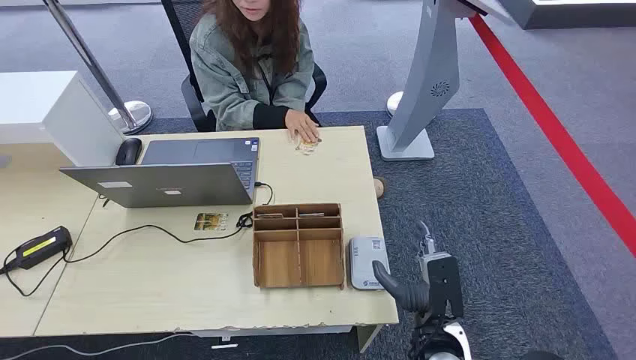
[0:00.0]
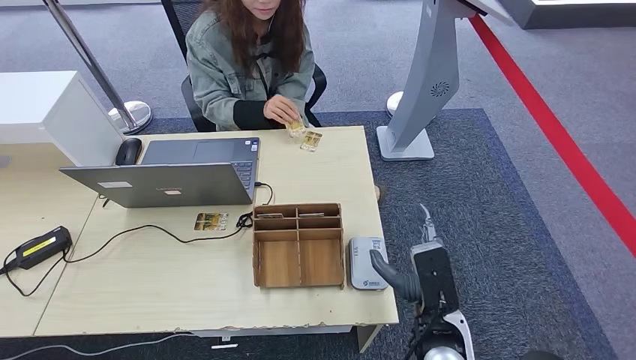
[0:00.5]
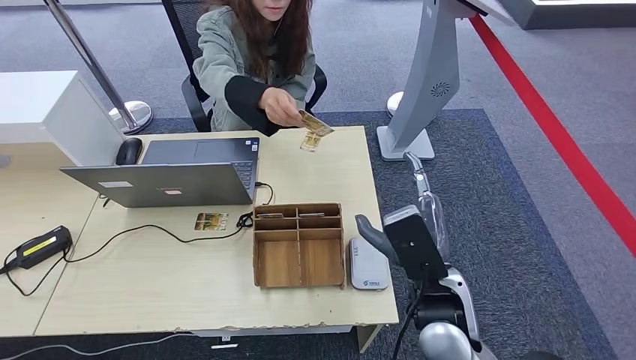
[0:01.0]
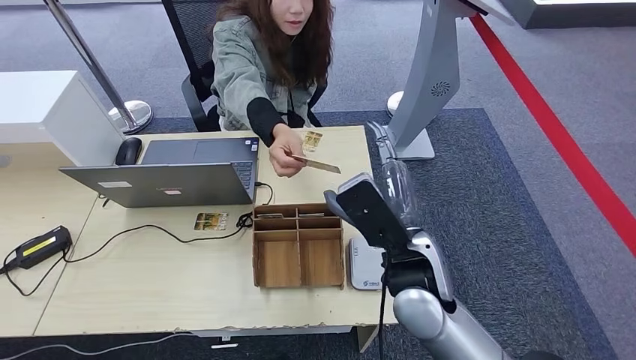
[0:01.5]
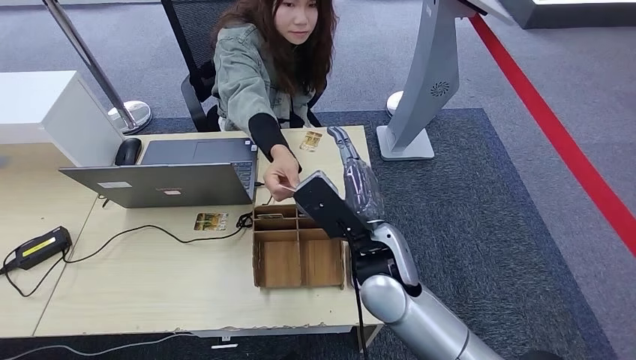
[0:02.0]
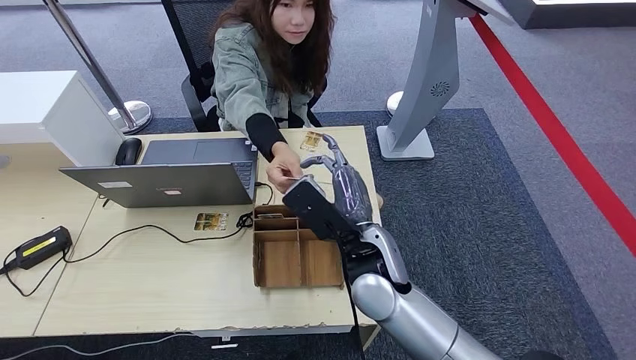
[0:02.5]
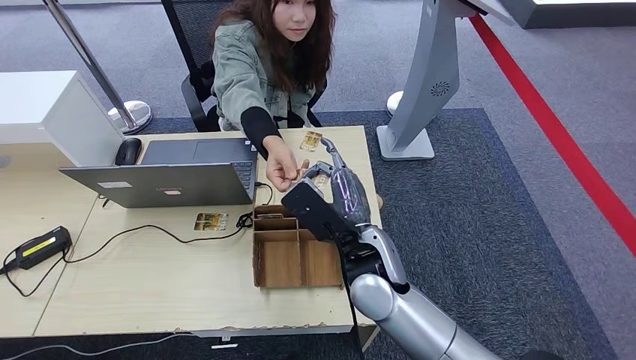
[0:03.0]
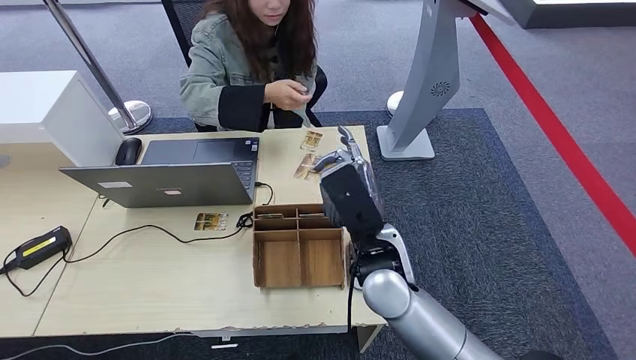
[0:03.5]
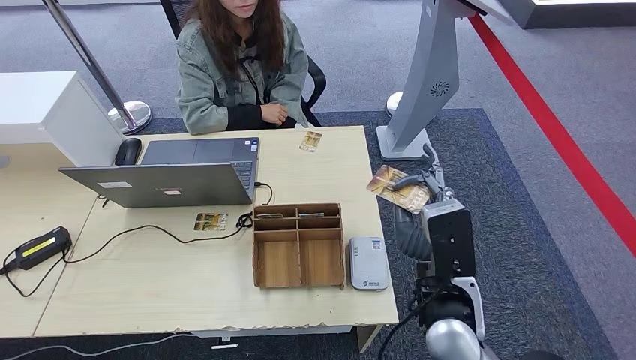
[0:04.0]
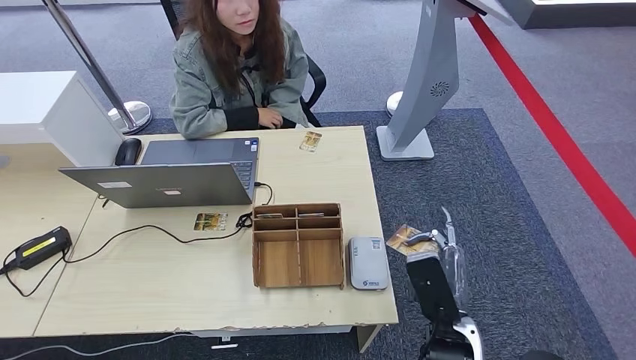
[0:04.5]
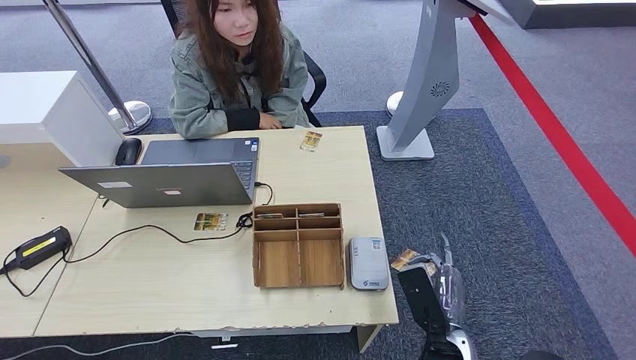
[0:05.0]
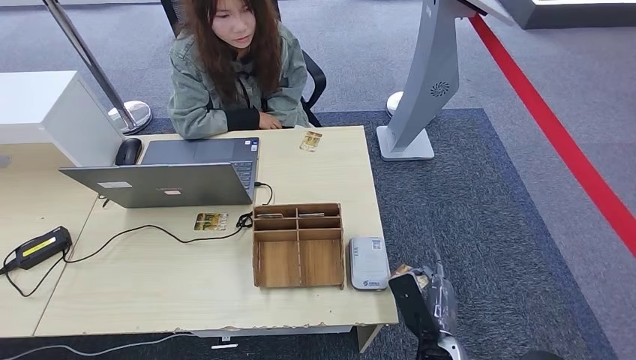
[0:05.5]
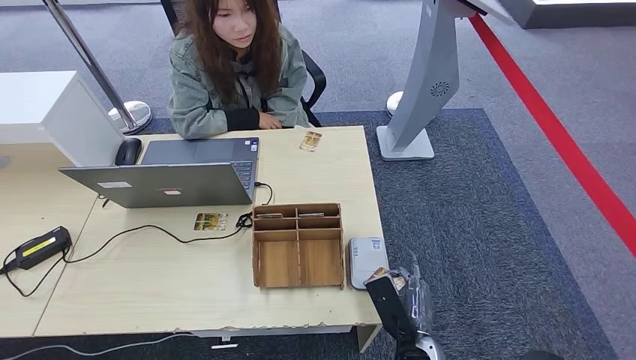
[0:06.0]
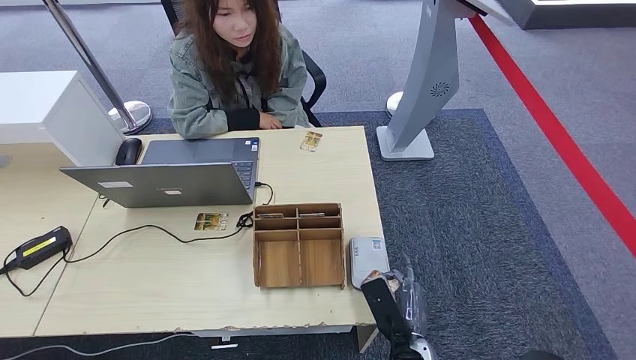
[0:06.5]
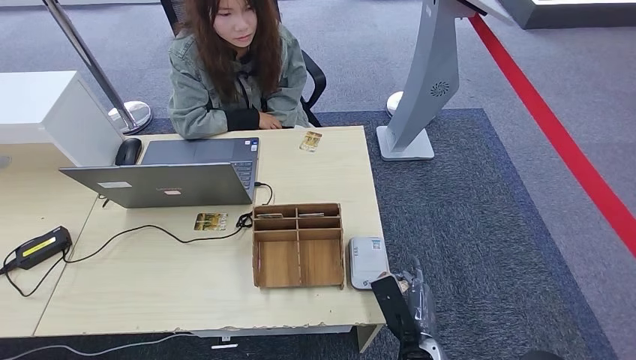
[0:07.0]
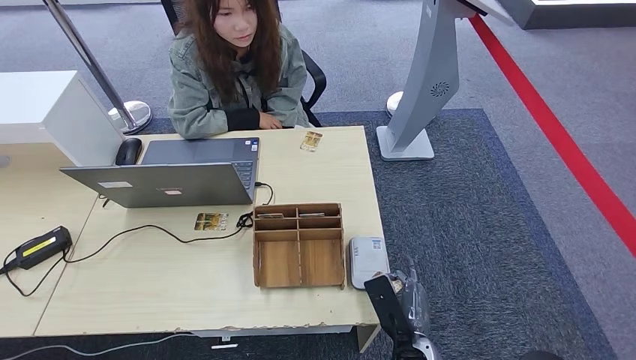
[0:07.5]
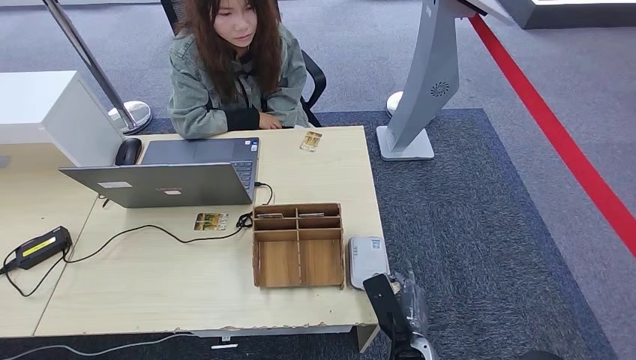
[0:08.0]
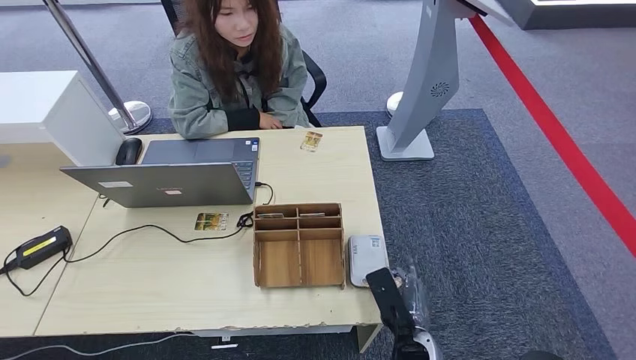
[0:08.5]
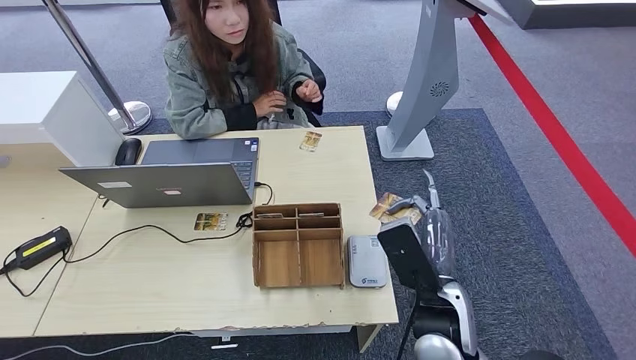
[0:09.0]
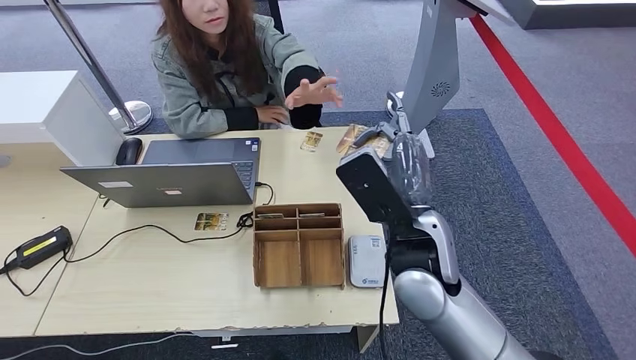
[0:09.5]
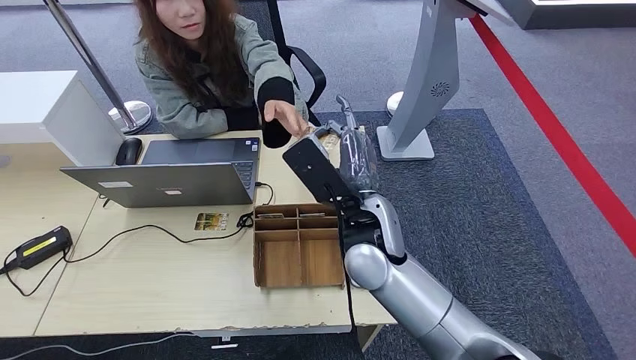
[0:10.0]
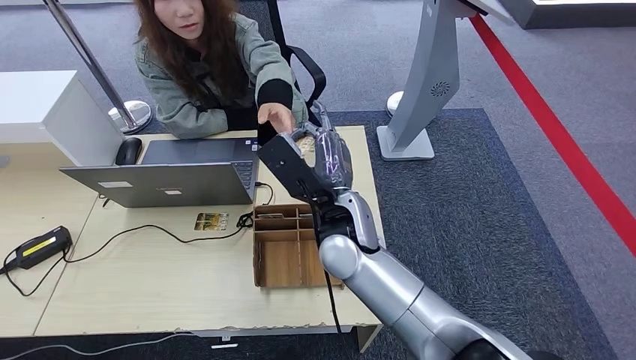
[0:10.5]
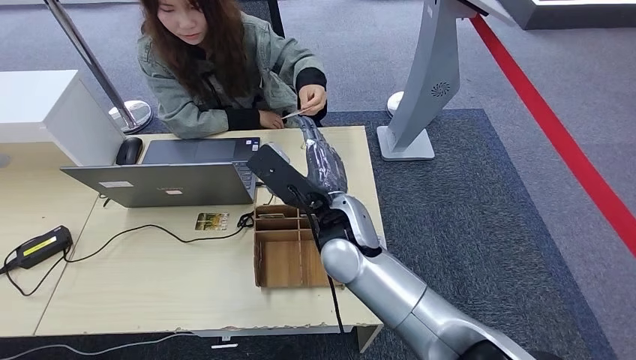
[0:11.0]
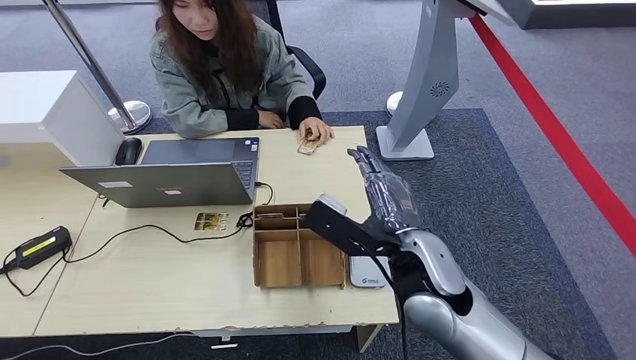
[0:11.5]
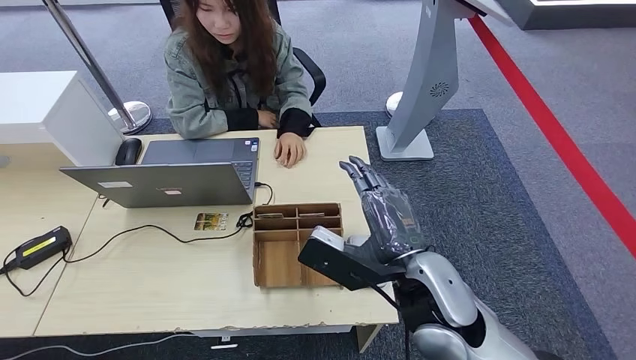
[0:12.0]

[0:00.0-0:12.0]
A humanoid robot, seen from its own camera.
Step, 0:00.0 to 0:03.0: Take the ID card from the person's hand.
Step, 0:03.5 to 0:06.5: Place the ID card on the card reader.
Step, 0:07.0 to 0:09.5: Hand the ID card to the person.
0:02.0 to 0:04.0: The right hand moves to the right and backward, roughly 10 cm.
0:04.0 to 0:06.0: The right hand goes some 20 cm downward and backward.
0:08.0 to 0:10.0: The right hand travels upward, forward and to the left by roughly 30 cm. The left hand ends up some 5 cm from where it was.
0:10.0 to 0:12.0: The left hand shifts by roughly 5 cm. The right hand heads backward and to the right, covering roughly 10 cm.

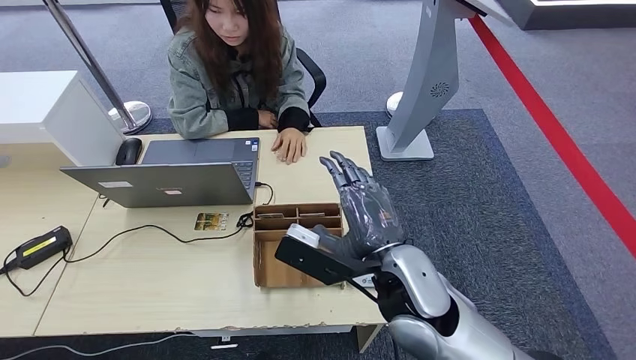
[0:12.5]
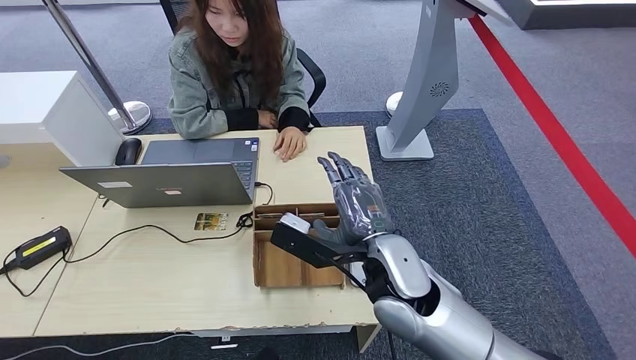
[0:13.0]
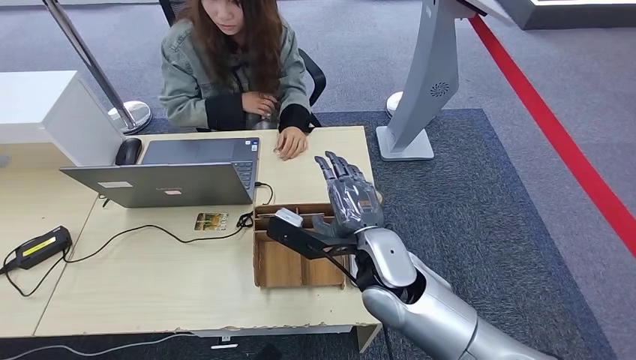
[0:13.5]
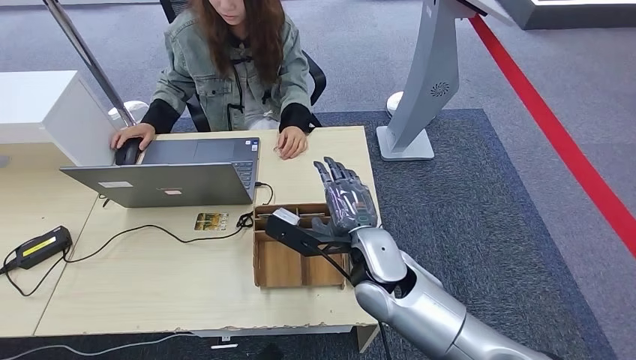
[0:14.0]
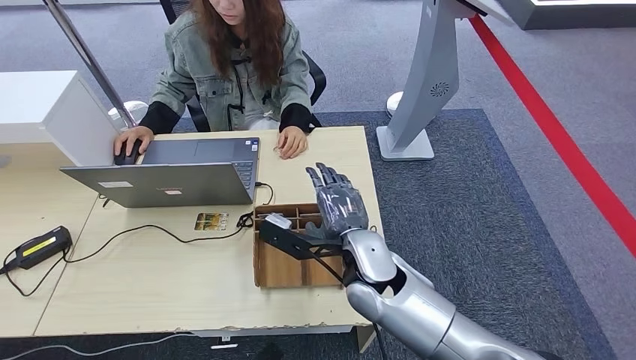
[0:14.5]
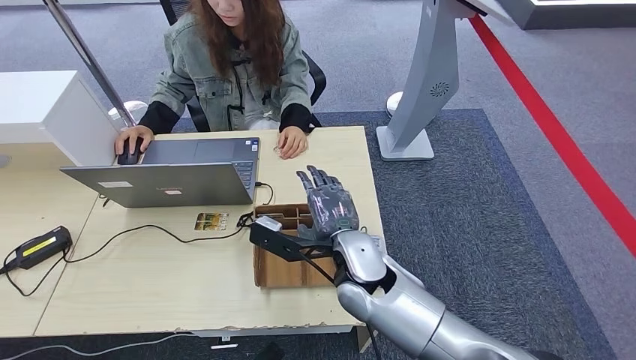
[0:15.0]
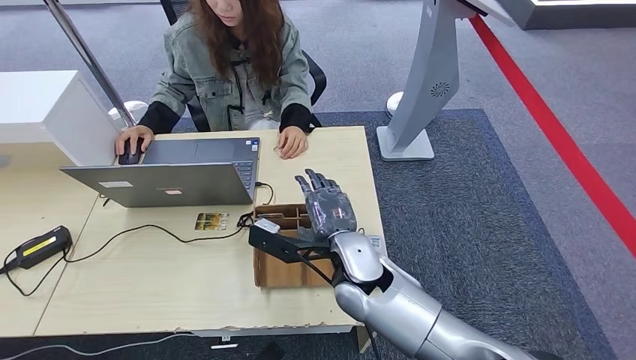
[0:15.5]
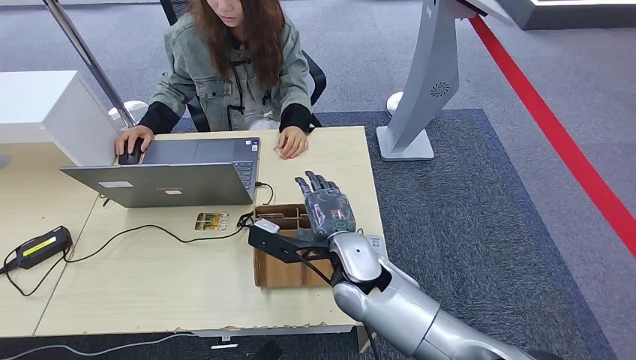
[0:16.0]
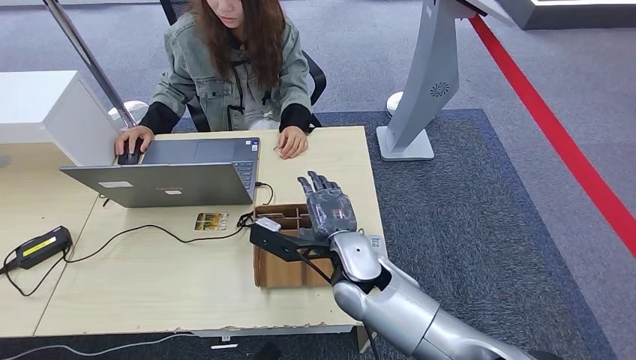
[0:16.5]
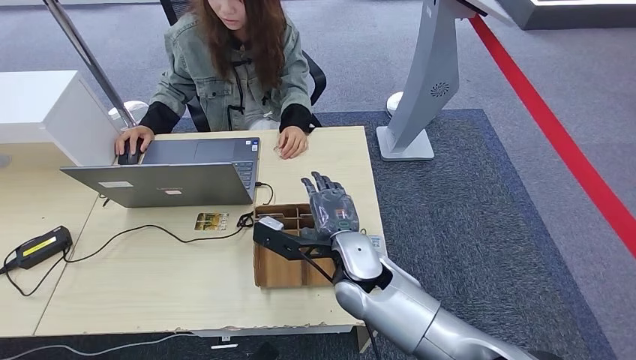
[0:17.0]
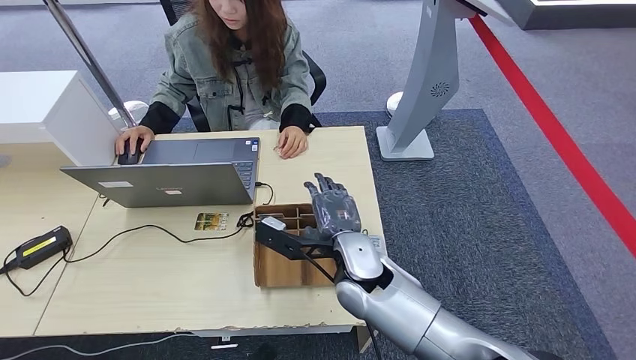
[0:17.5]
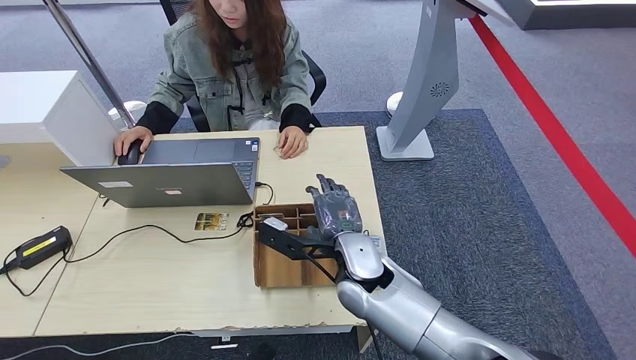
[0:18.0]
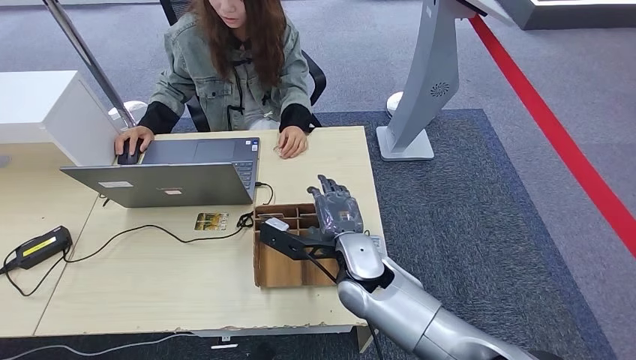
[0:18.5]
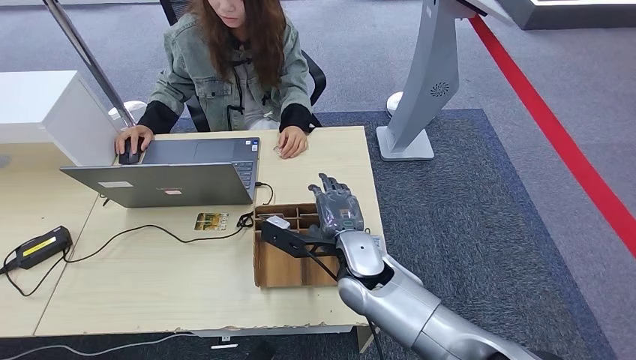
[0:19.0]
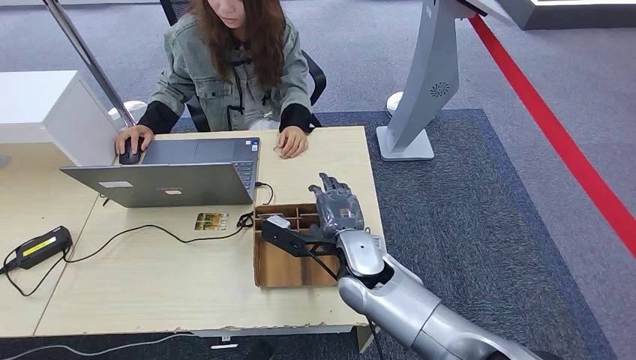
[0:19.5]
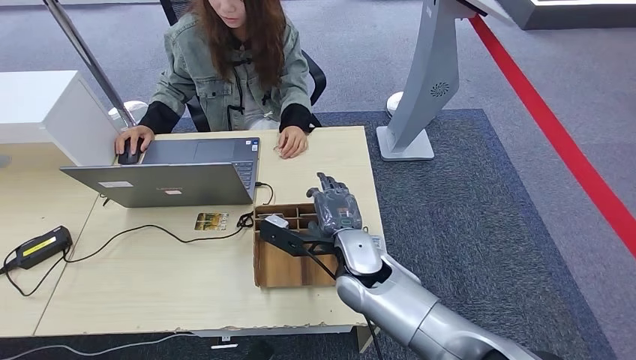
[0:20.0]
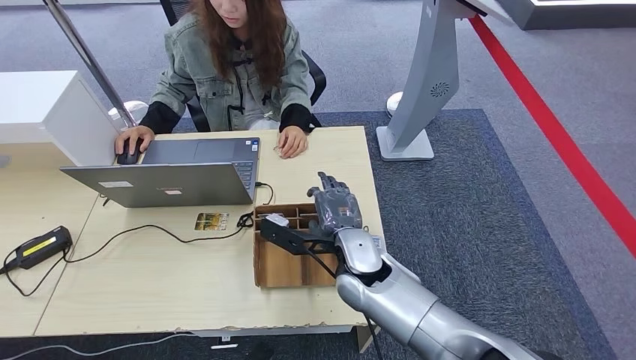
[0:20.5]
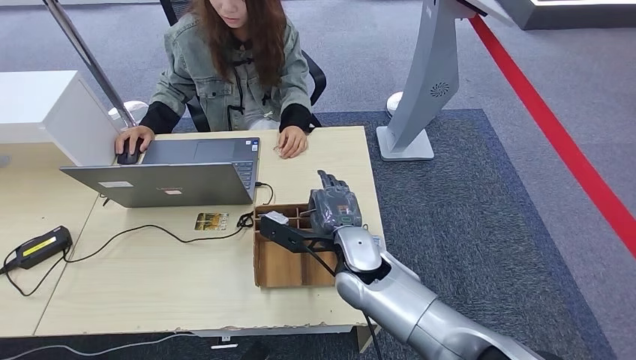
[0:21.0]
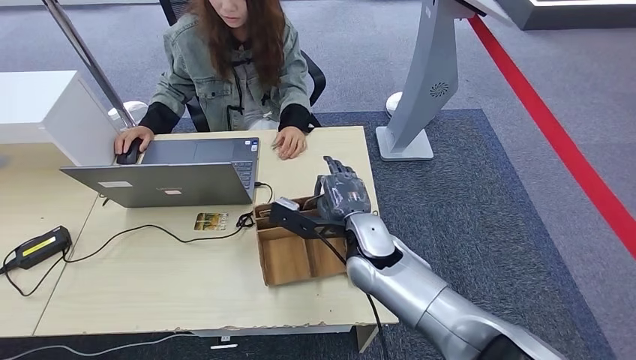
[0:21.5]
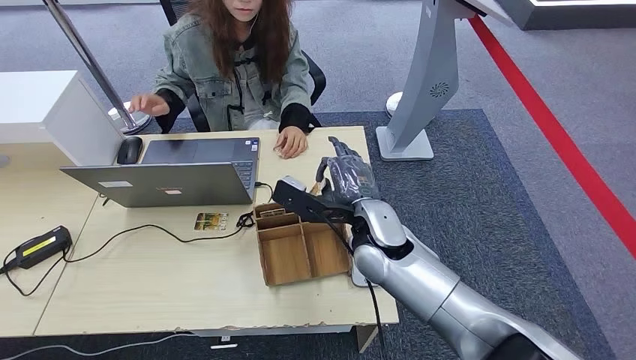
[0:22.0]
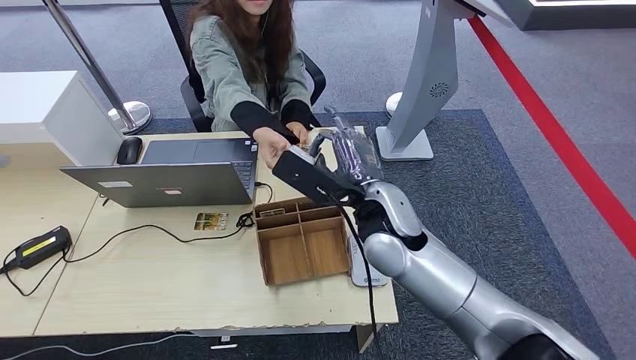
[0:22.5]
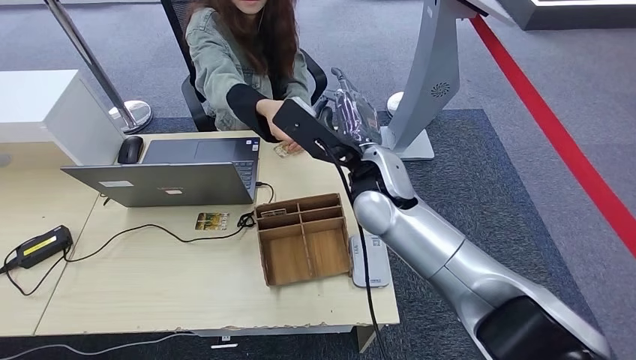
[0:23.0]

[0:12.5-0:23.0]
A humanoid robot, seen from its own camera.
Step, 0:12.5 to 0:21.5: Pick up the room key from the key card box.
0:12.5 to 0:14.5: The right hand travels downward by about 5 cm.
0:14.5 to 0:19.0: There are only small adjustments of the hands.
0:19.0 to 0:21.0: Neither hand changes place.
